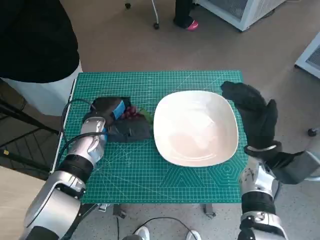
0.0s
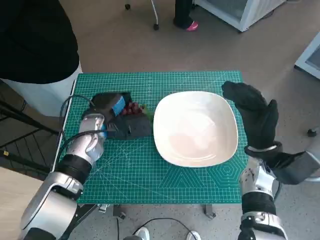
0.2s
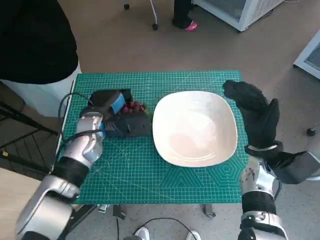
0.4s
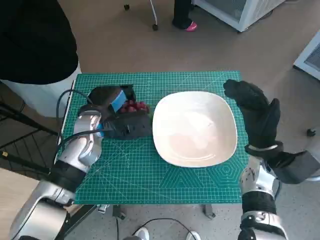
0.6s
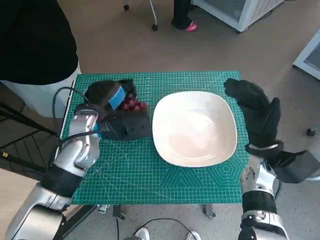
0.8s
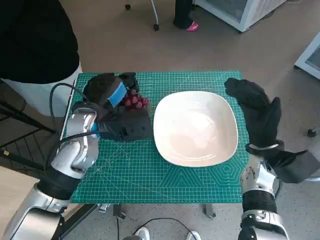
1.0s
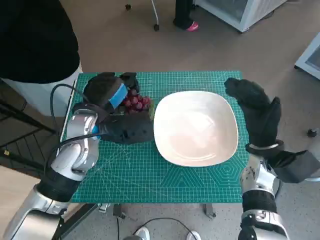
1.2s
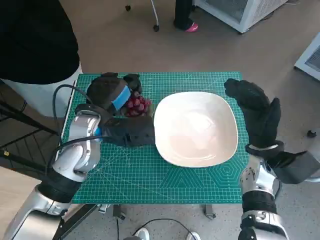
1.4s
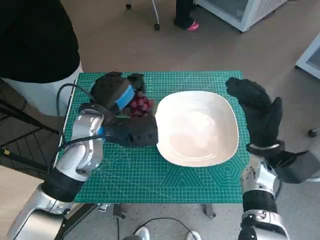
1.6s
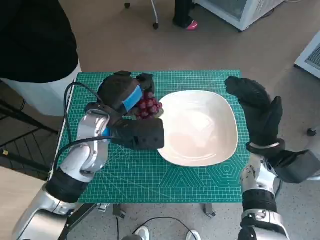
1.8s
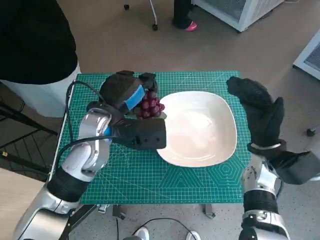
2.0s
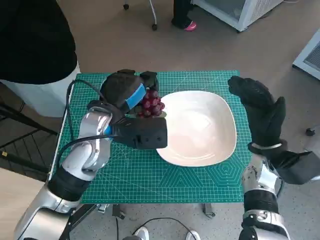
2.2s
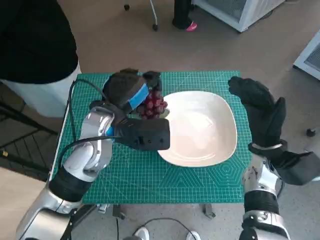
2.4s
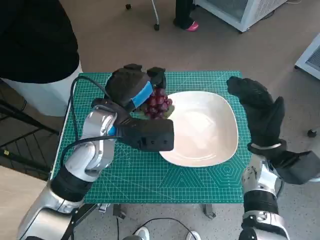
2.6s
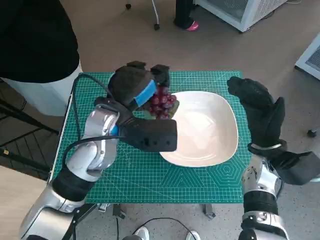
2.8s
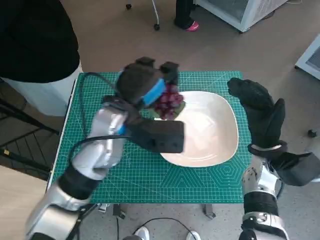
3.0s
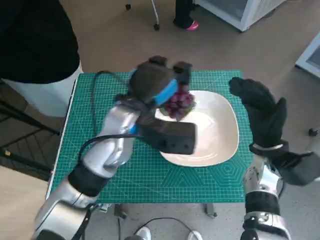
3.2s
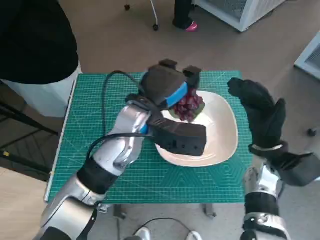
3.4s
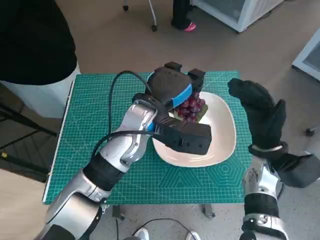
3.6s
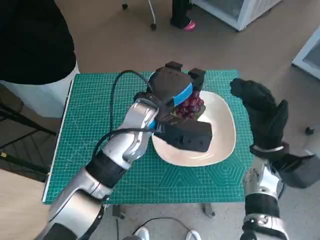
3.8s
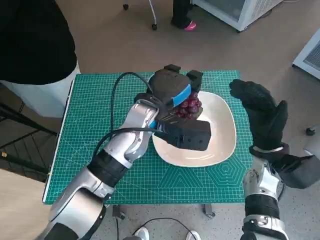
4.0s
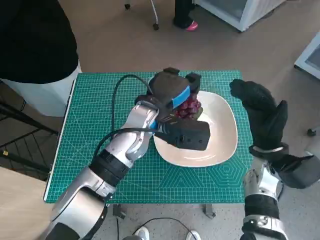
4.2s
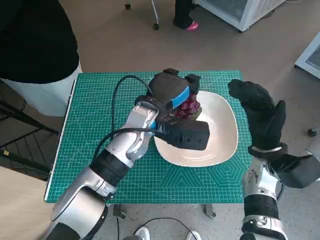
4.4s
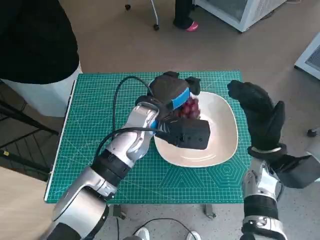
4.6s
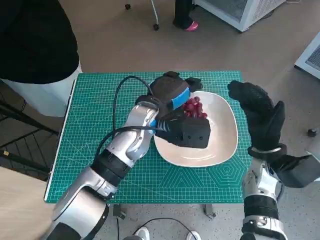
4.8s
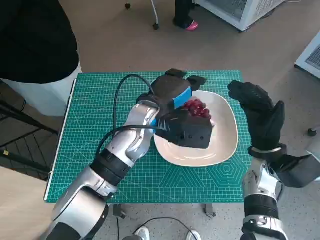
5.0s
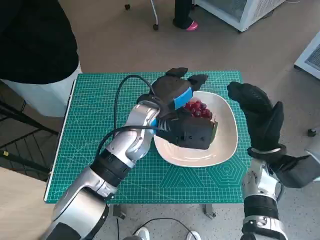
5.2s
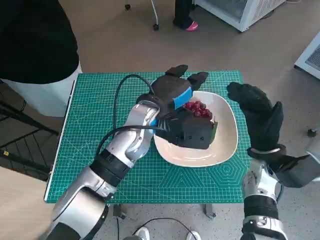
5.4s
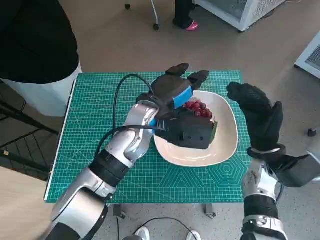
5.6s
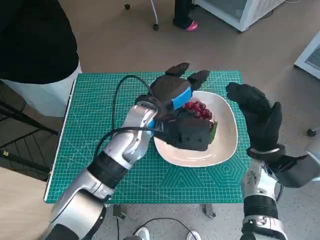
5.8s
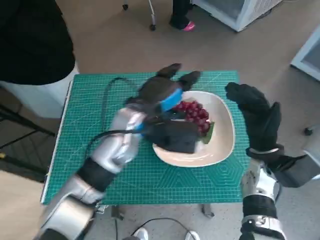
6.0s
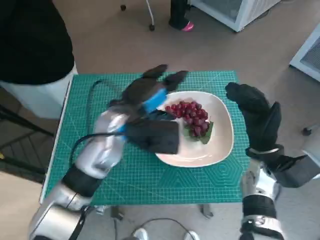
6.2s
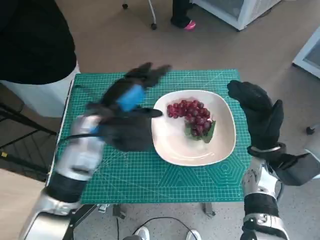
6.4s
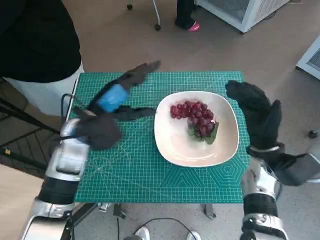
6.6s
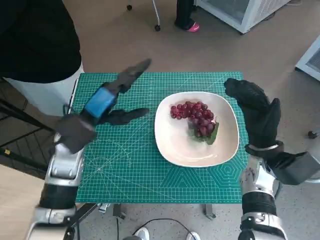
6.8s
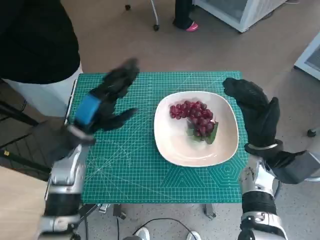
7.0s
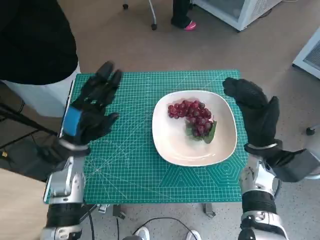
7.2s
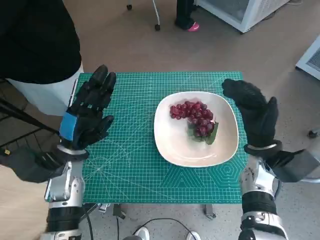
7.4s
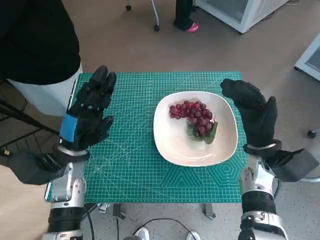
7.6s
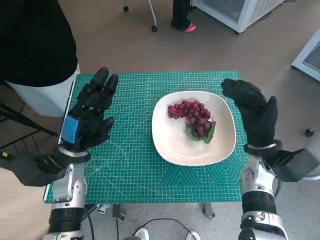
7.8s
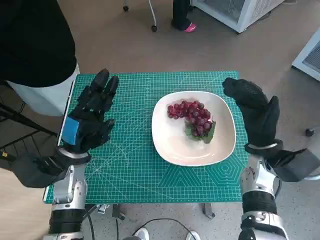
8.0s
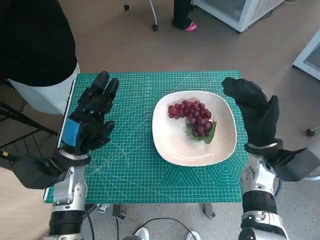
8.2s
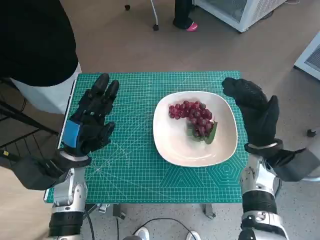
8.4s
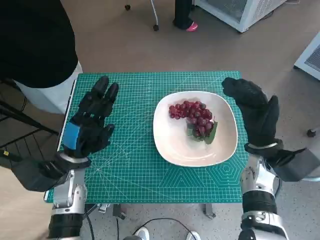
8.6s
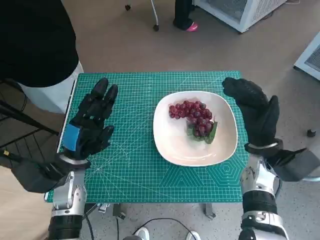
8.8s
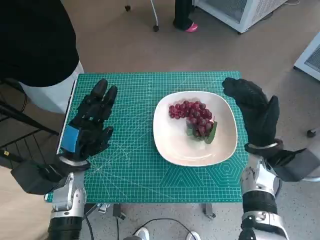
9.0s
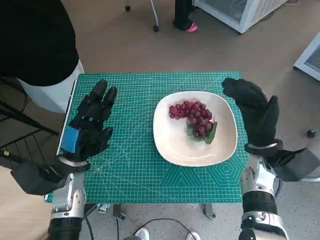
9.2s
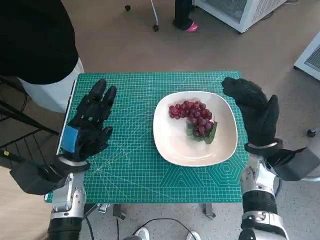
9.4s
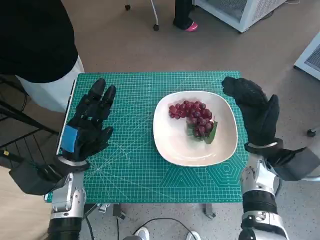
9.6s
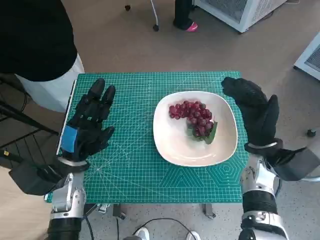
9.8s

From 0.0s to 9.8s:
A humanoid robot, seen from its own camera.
Task of the whole recording: Pick up the grapes and put them on the plate.
Step, from 0.0s to 5.2s: Place the grapes in the plate with left hand.
From 0.0s to 1.4s: The left hand moves upward, some 10 cm.
From 1.4s to 2.8s: The hands stay close to where they were, moving slightly.
From 2.8s to 4.2s: The left hand heads to the right, covering about 5 cm.
From 4.2s to 5.6s: The hands make only small movements.
From 5.6s to 7.0s: The left hand travels to the left by about 15 cm.
From 7.0s to 8.4s: The left hand shifts by approximately 5 cm.
From 8.4s to 9.8s: Both hands stay put.

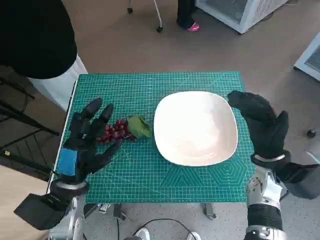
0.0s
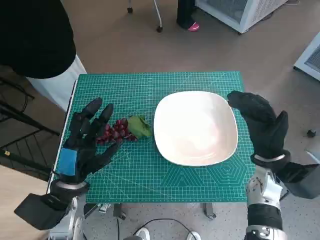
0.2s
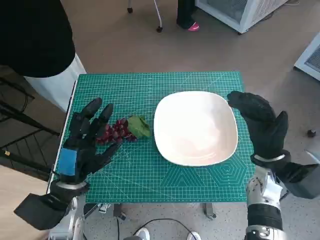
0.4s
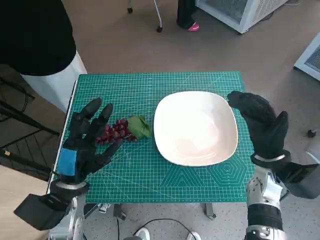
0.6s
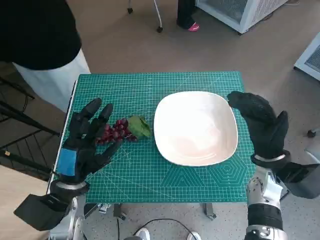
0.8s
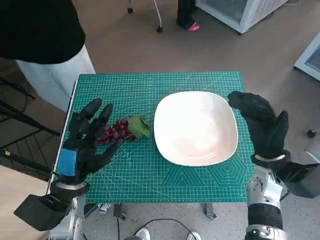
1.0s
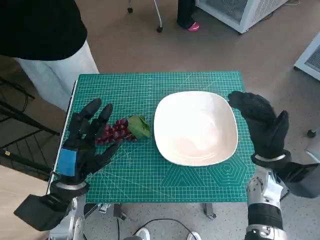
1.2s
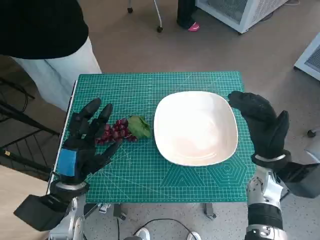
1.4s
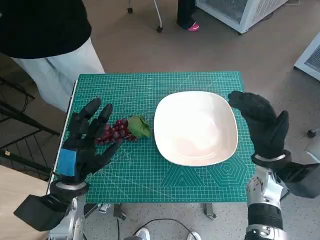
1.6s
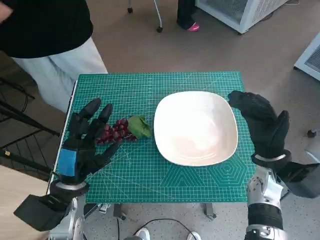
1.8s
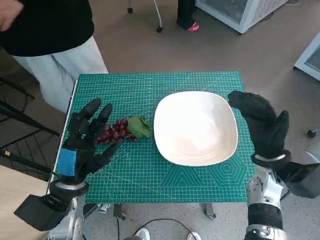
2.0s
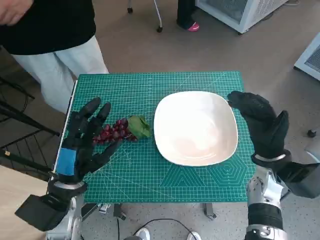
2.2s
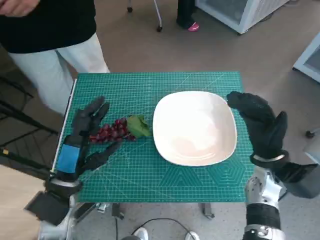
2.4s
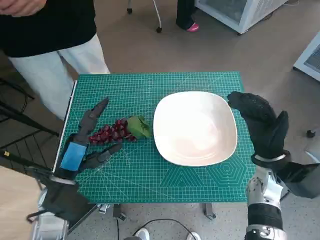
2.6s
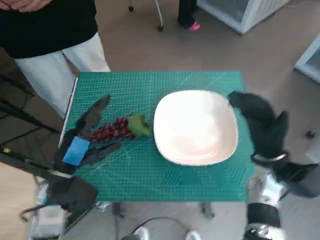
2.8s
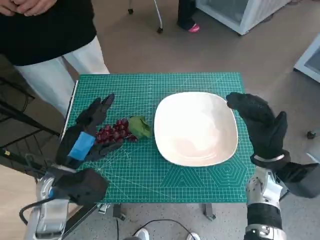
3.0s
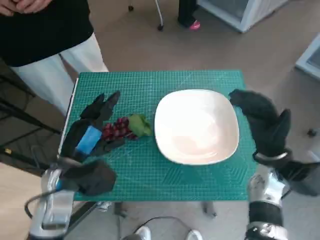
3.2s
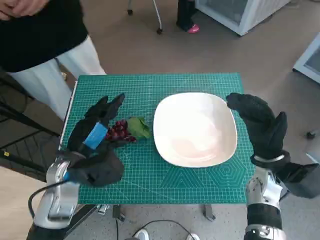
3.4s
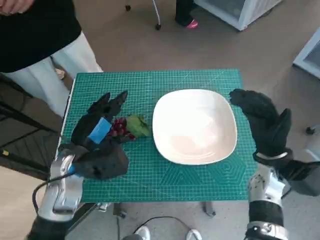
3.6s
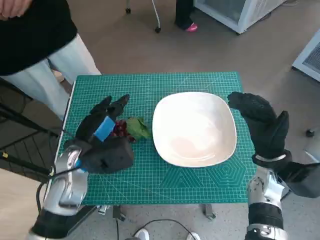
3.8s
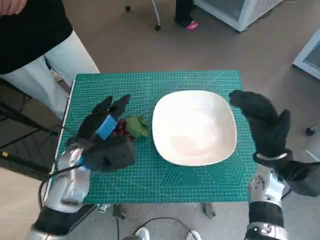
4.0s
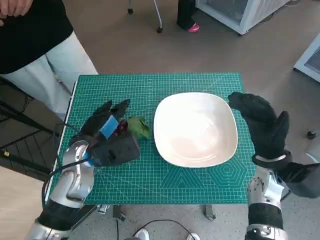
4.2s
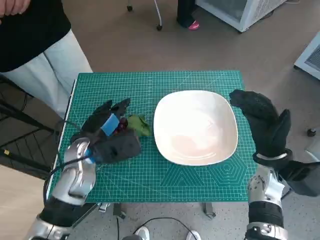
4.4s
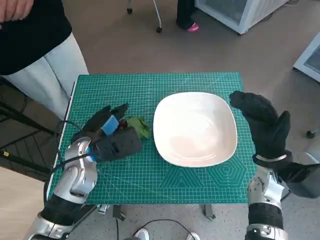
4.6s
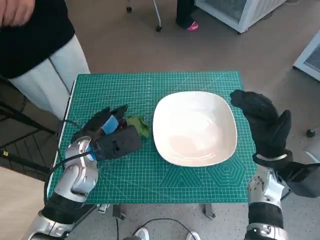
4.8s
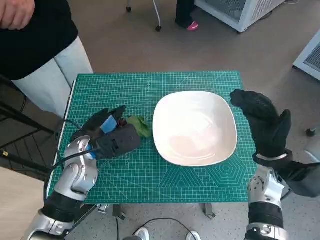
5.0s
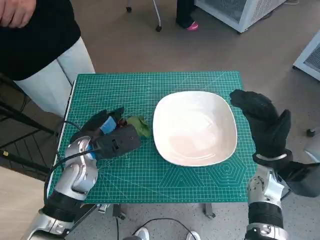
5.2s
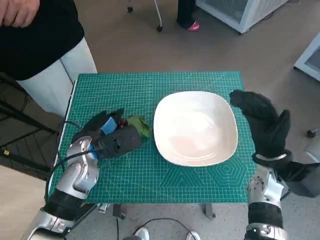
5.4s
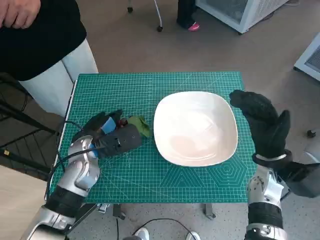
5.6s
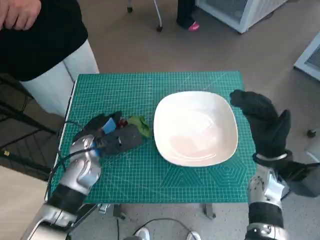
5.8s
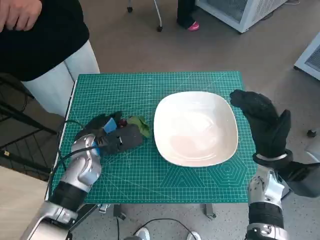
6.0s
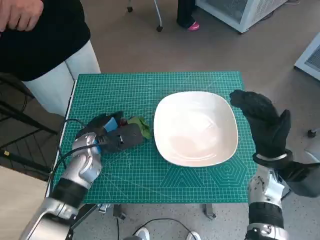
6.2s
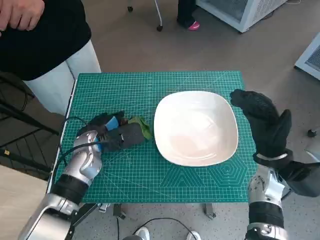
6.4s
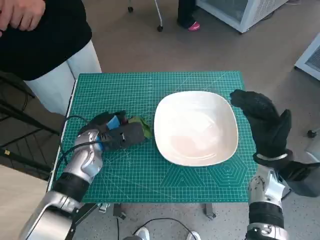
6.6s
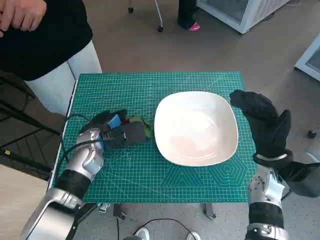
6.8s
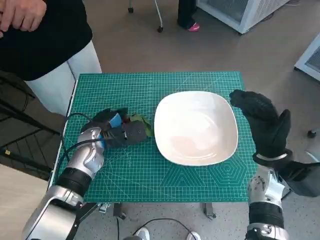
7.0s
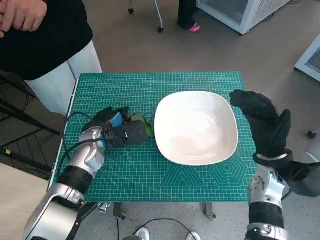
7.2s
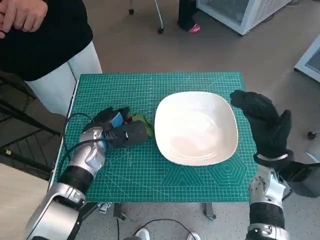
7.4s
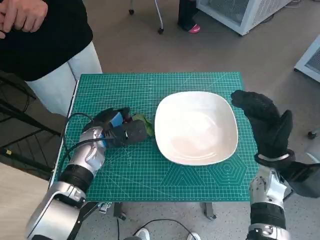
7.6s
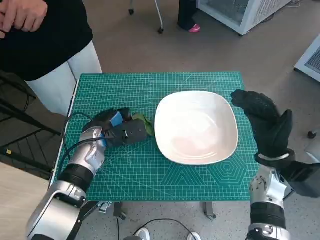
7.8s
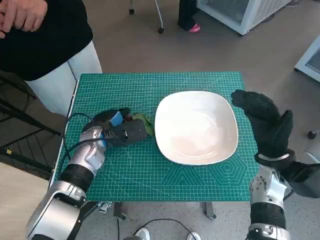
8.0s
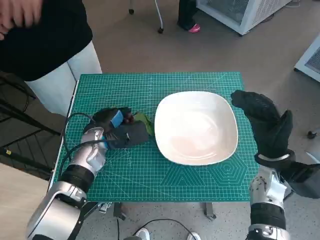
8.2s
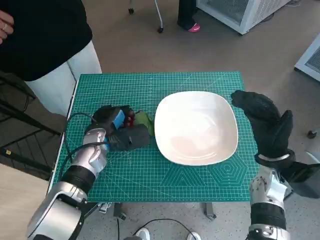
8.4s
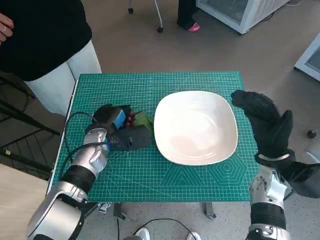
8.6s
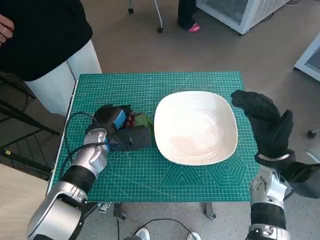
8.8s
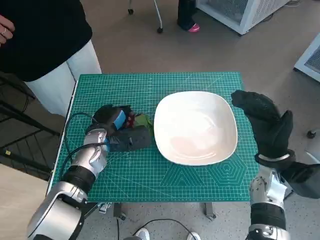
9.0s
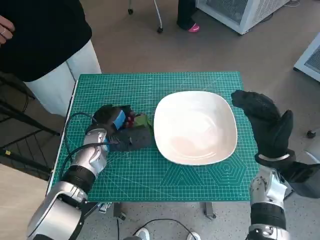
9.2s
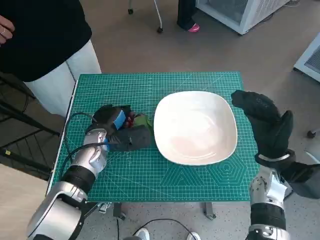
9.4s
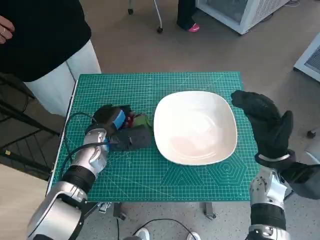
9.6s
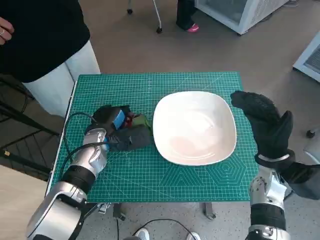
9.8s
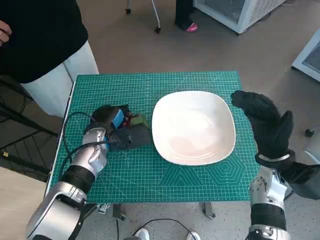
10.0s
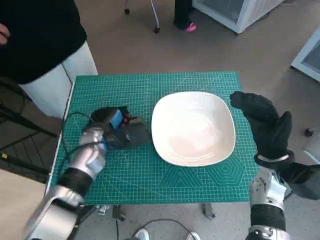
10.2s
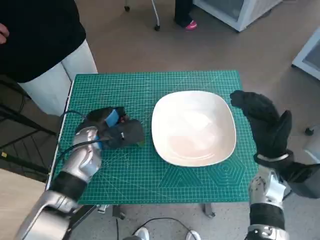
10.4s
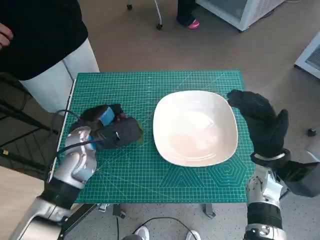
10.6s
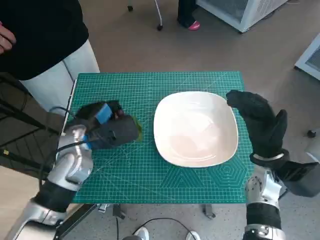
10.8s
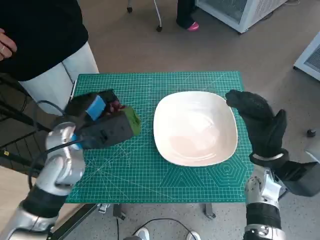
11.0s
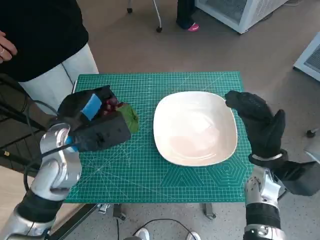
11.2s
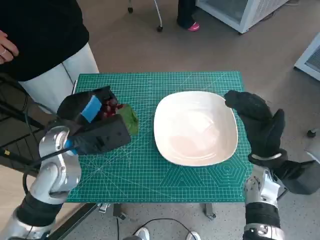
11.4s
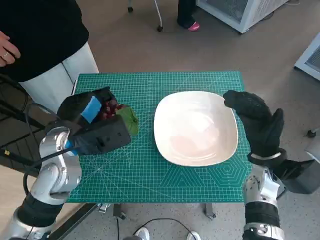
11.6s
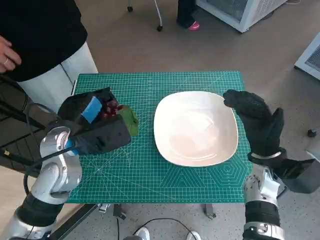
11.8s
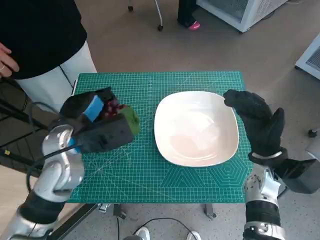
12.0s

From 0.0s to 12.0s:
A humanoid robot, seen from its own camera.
Task of the whole recording: Pick up the grapes and put them on the plate.
Step, from 0.0s to 8.8s: Grasp the grapes with left hand.
From 3.0s to 4.4s: The left hand is displaced forward by some 5 cm.
From 4.4s to 6.0s: There are only small adjustments of the hands.
From 6.0s to 10.4s: There are only small adjustments of the hands.
From 10.4s to 12.0s: The left hand travels upward by about 10 cm.

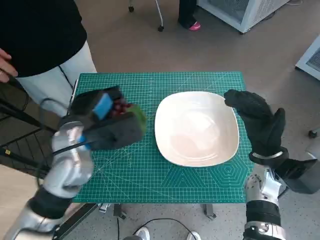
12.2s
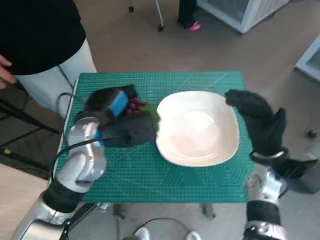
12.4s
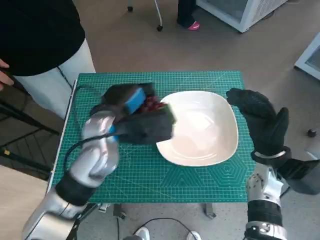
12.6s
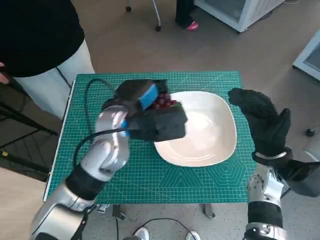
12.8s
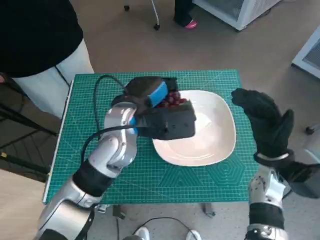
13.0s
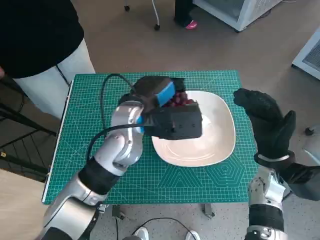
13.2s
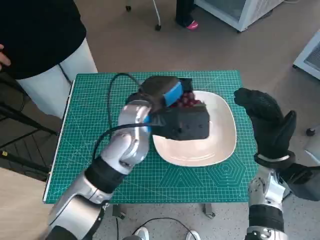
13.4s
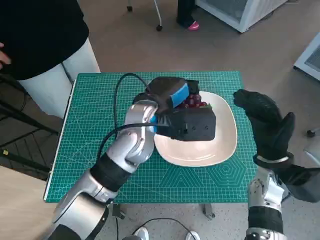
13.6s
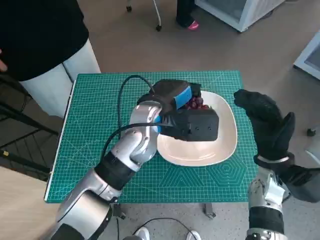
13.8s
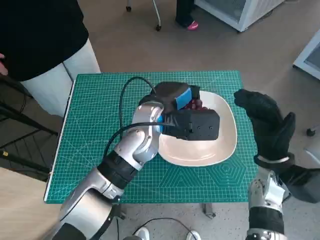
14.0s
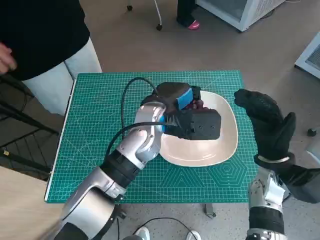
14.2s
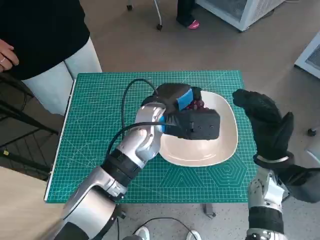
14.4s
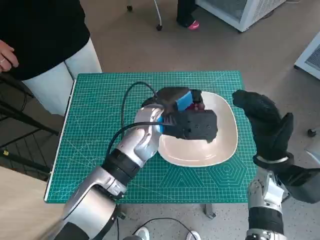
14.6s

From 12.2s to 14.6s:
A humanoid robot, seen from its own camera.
Task of the whole recording: Pick up the grapes and put them on the plate.
From 12.2s to 13.4s: The left hand goes approximately 10 cm to the right.
From 13.4s to 14.6s: There are only small adjustments of the hands.
